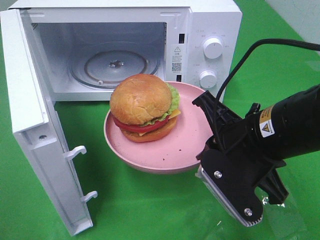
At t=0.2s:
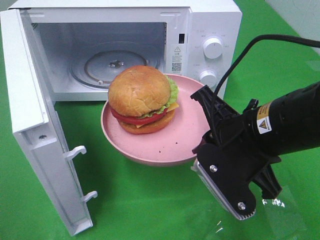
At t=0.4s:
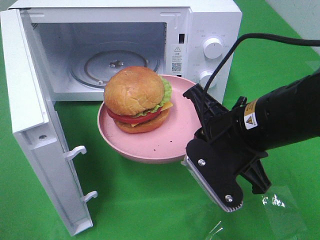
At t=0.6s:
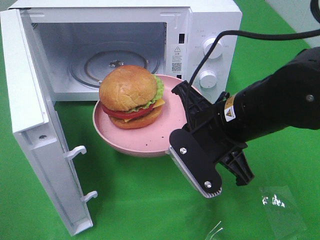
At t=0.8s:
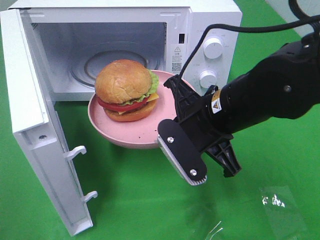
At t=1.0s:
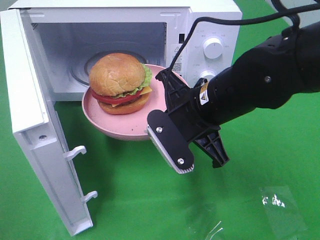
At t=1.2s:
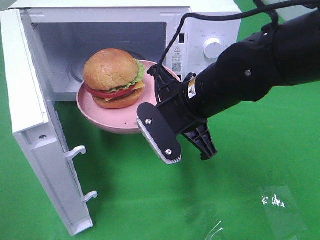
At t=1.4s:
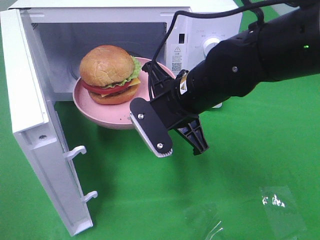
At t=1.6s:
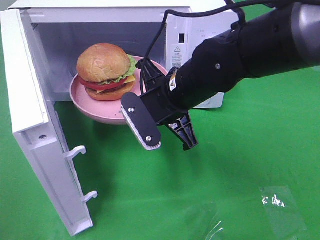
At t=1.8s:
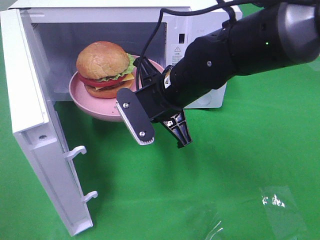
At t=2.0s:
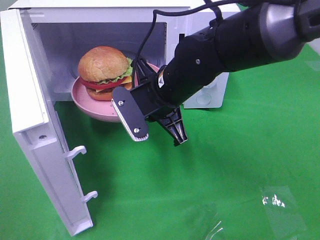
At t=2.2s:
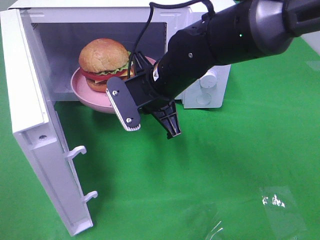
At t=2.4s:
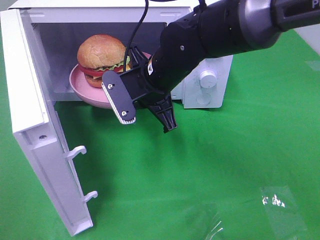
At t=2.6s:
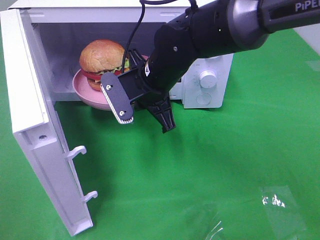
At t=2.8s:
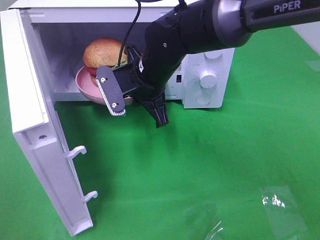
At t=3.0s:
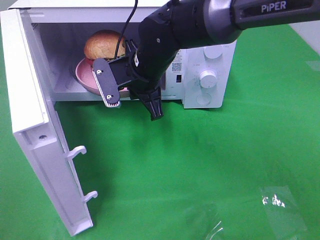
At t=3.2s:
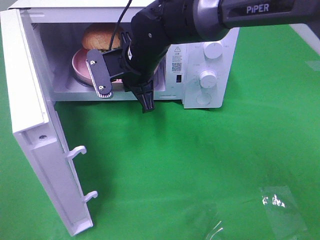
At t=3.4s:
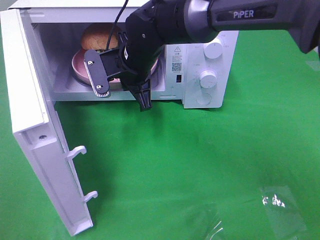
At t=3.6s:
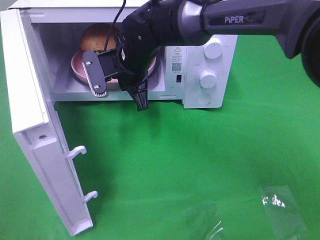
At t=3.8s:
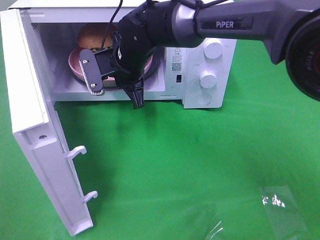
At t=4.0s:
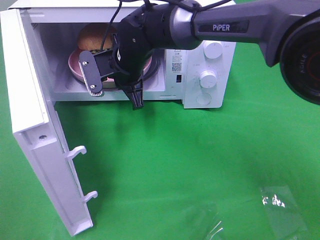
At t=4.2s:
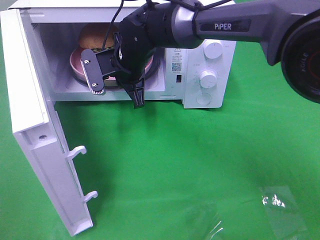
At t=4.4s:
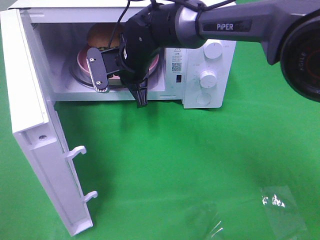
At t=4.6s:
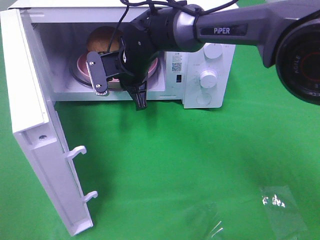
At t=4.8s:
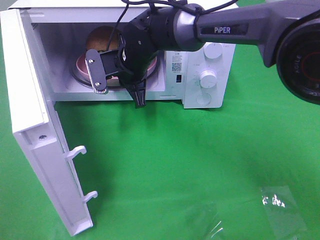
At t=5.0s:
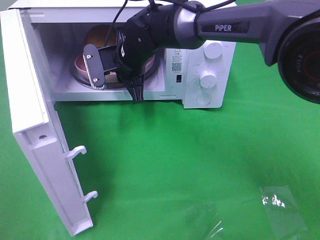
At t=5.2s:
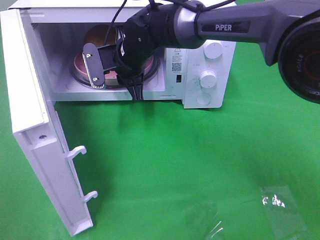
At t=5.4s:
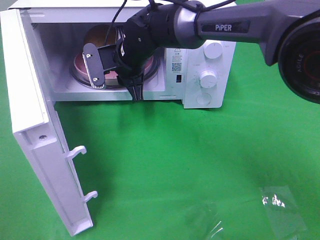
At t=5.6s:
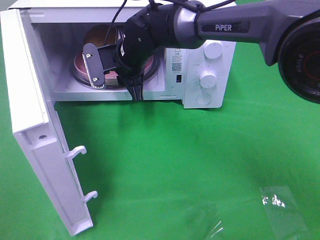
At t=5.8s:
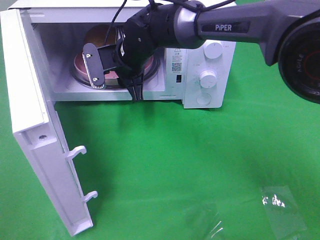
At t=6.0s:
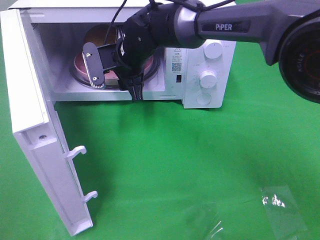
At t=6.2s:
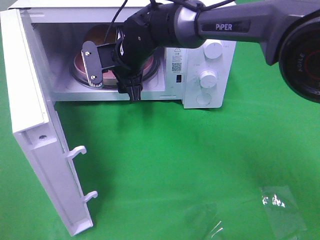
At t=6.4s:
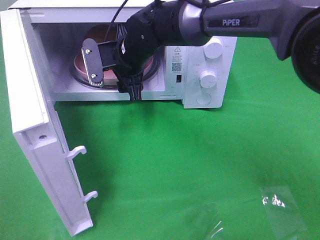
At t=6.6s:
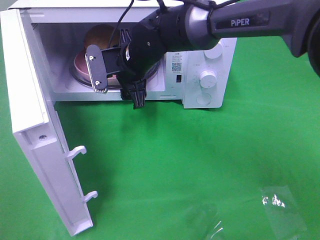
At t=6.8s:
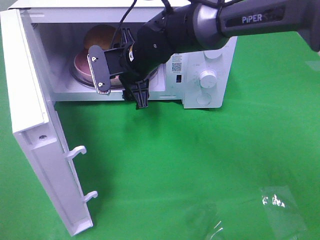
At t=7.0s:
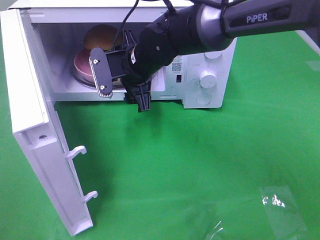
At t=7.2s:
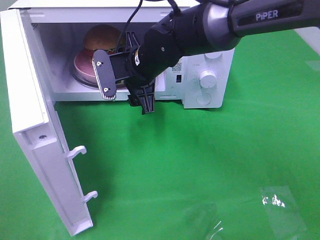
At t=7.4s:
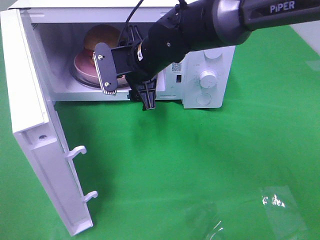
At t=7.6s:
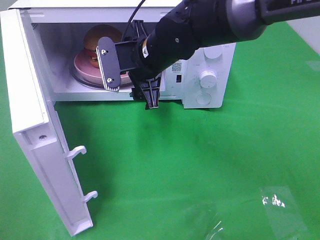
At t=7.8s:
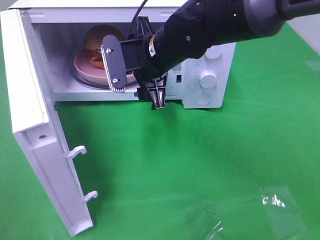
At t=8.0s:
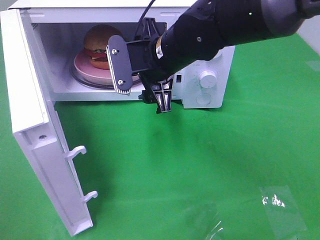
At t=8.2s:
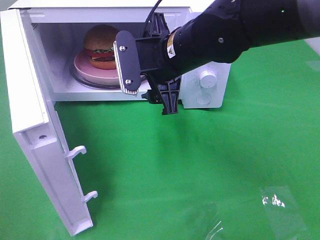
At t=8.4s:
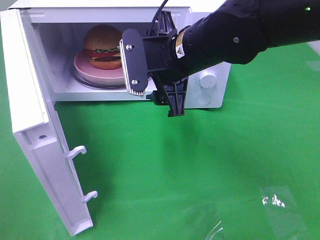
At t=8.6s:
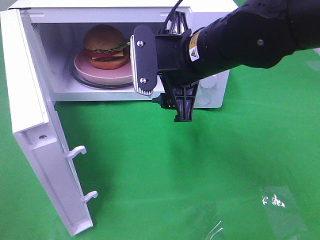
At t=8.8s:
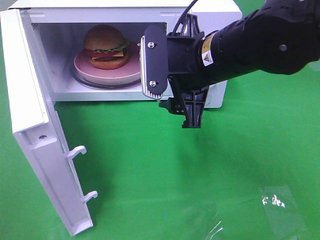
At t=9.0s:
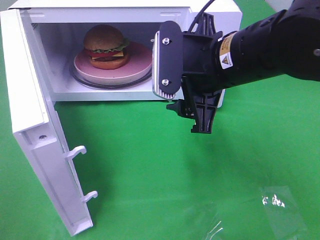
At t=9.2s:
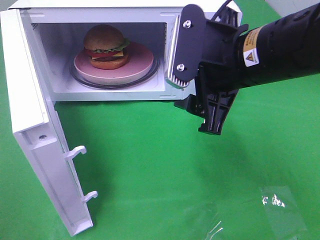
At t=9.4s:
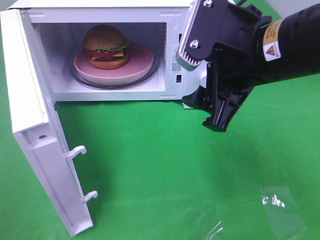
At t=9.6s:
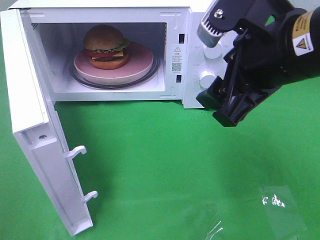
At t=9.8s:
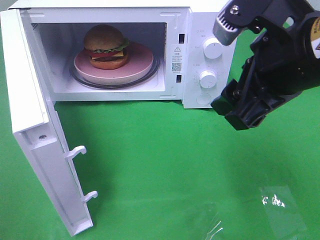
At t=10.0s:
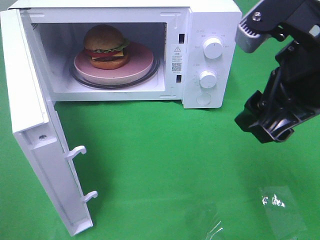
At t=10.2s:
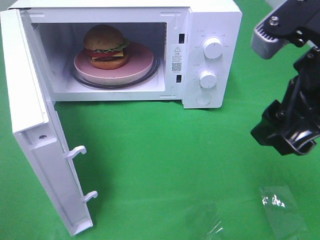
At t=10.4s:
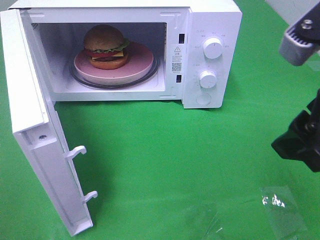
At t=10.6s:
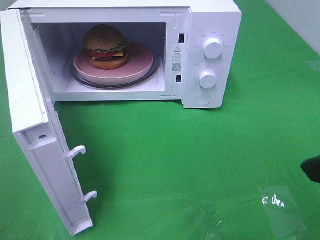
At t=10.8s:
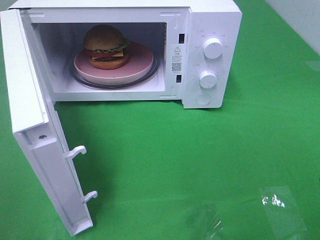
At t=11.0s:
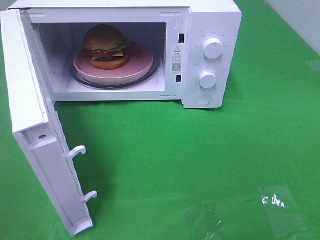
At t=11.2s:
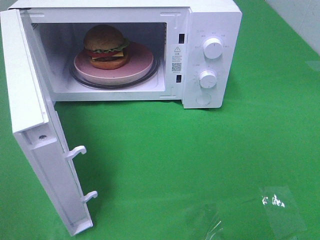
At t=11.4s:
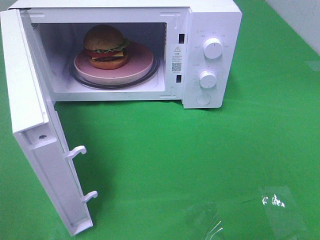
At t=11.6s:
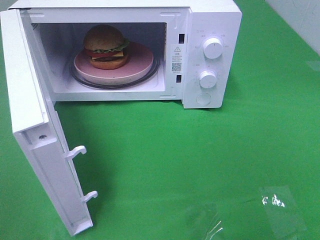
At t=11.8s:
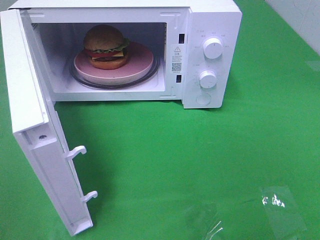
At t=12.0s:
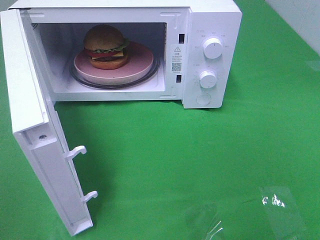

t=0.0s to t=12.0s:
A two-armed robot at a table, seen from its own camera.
Task of the whole recording: Heat the burger.
Step, t=0.0s to t=6.4s: Right hand: place the plate in the microwave.
t=0.0s to t=1.6s: The right gripper travels forward and to the left by approximately 15 cm.
t=1.6s to t=3.0s: The right gripper is displaced forward and to the left by about 10 cm.
t=3.0s to t=4.4s: The right gripper travels forward by some 5 cm.
t=4.4s to t=6.0s: The right gripper opens its fingers.
t=6.0s to t=7.6s: The right gripper shifts some 5 cm backward.
t=7.6s to t=9.0s: The right gripper travels backward and to the right by roughly 15 cm.
t=9.0s to t=10.4s: The right gripper is displaced backward, to the right and upward by some 15 cm.
t=10.4s to t=12.0s: The right gripper shifts about 20 cm backward and to the right.

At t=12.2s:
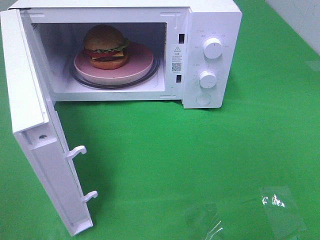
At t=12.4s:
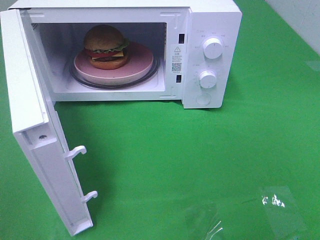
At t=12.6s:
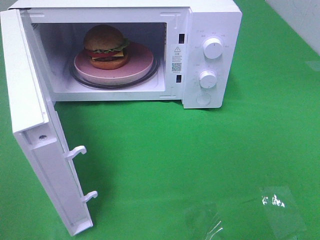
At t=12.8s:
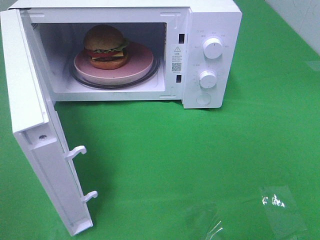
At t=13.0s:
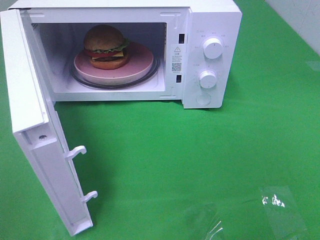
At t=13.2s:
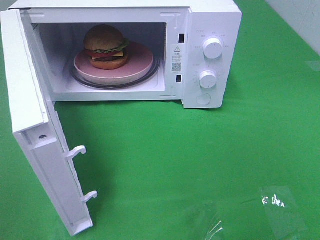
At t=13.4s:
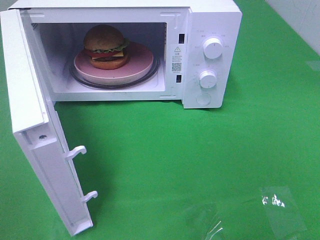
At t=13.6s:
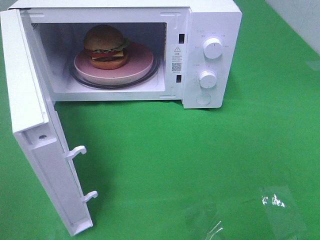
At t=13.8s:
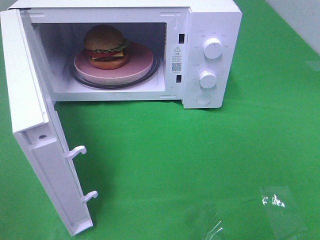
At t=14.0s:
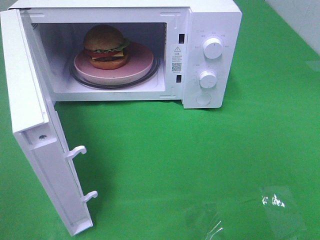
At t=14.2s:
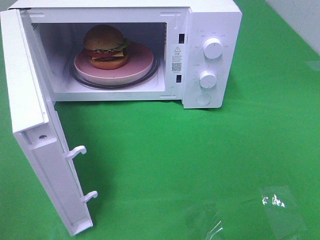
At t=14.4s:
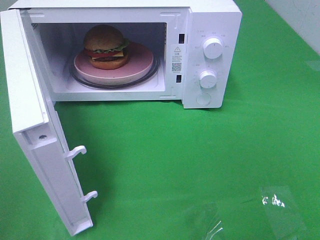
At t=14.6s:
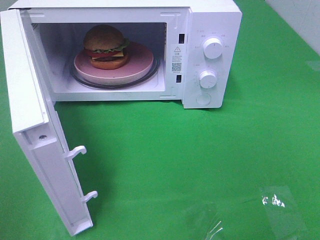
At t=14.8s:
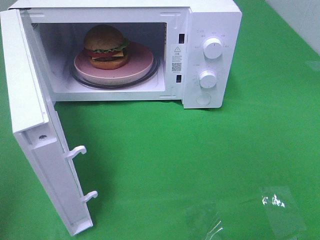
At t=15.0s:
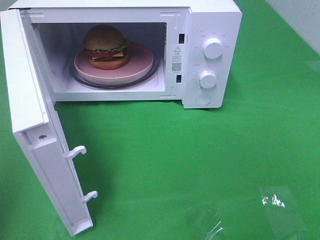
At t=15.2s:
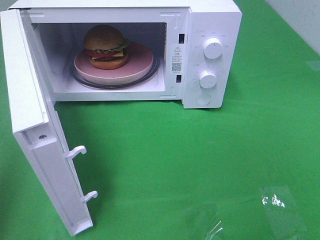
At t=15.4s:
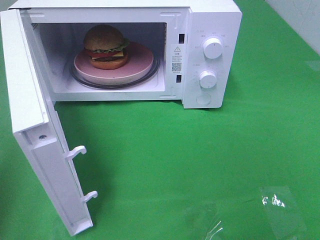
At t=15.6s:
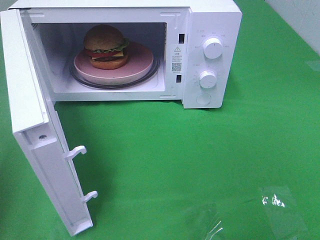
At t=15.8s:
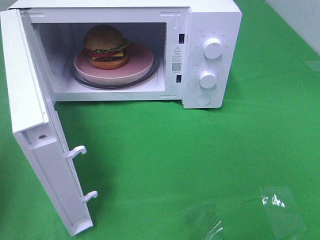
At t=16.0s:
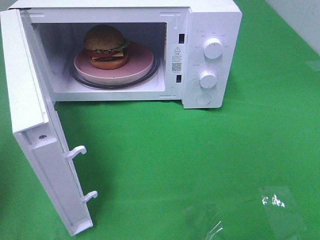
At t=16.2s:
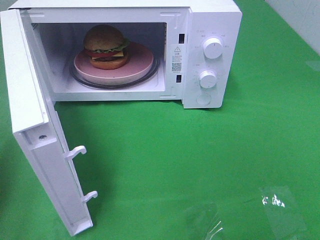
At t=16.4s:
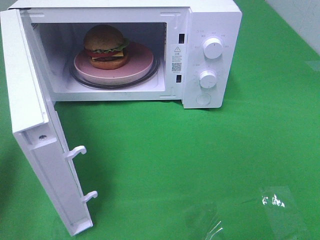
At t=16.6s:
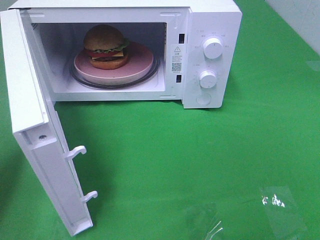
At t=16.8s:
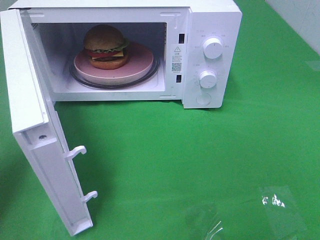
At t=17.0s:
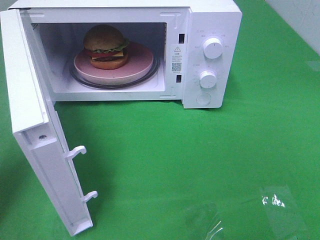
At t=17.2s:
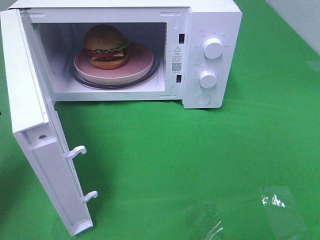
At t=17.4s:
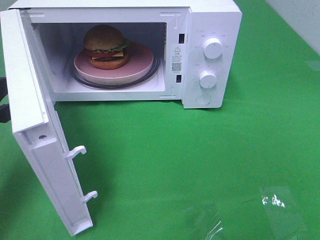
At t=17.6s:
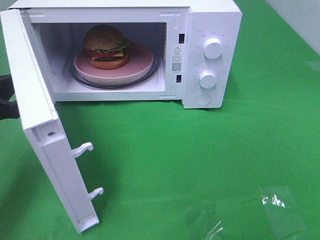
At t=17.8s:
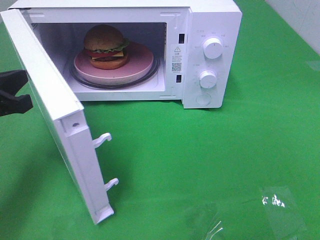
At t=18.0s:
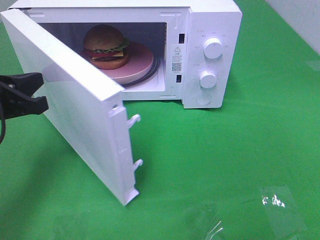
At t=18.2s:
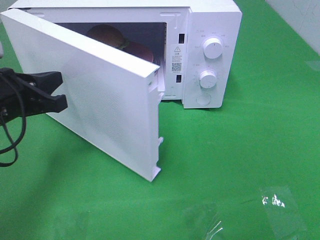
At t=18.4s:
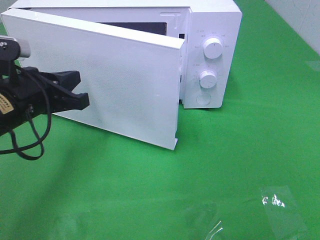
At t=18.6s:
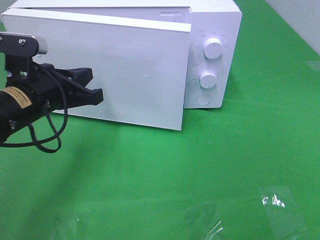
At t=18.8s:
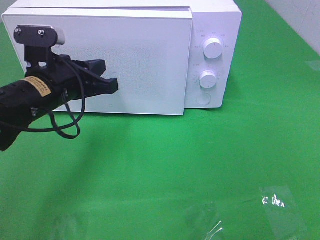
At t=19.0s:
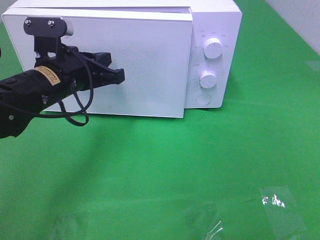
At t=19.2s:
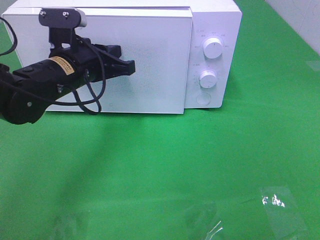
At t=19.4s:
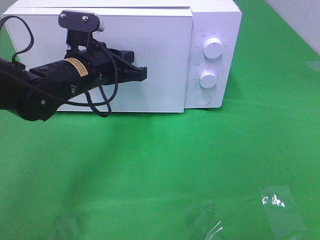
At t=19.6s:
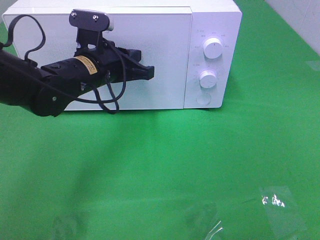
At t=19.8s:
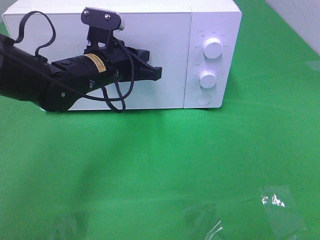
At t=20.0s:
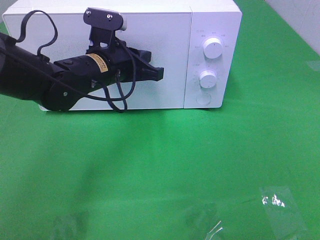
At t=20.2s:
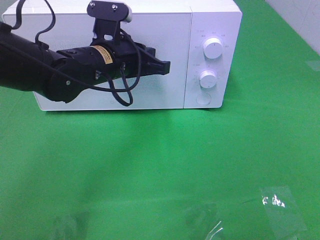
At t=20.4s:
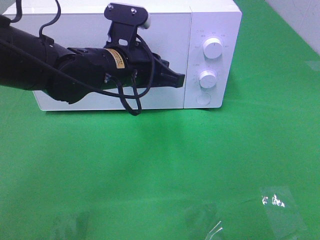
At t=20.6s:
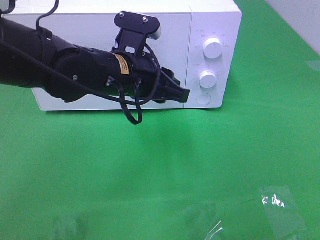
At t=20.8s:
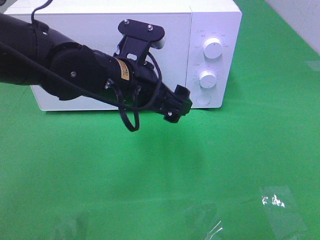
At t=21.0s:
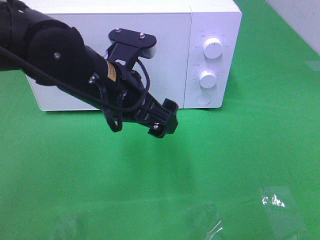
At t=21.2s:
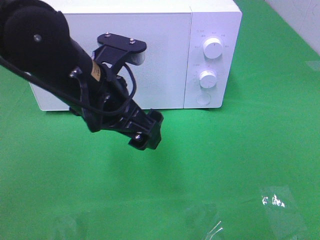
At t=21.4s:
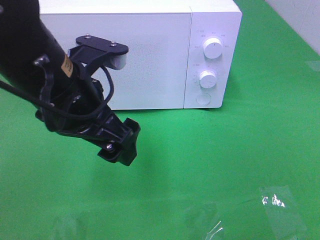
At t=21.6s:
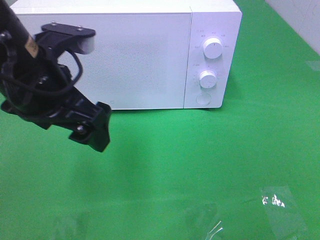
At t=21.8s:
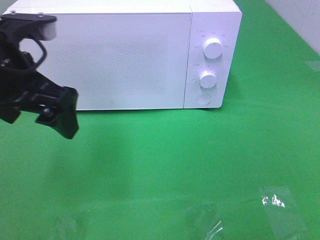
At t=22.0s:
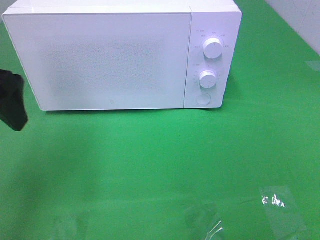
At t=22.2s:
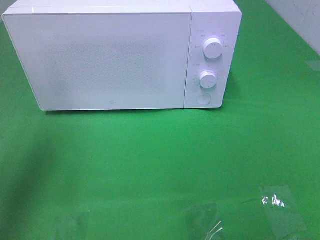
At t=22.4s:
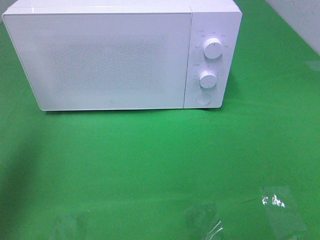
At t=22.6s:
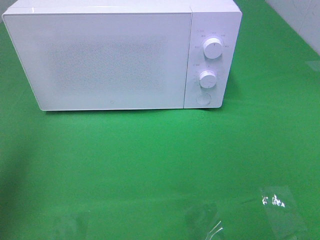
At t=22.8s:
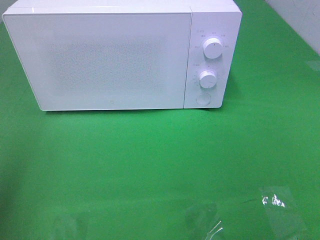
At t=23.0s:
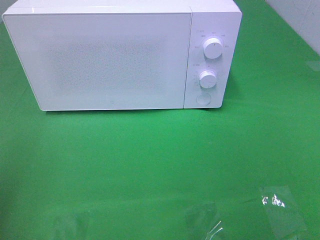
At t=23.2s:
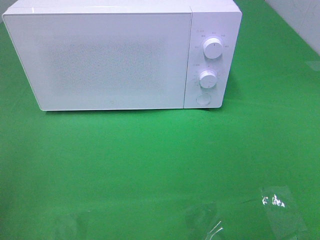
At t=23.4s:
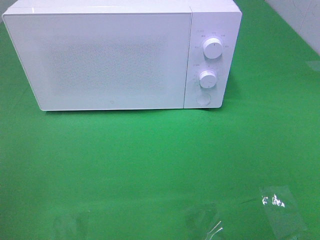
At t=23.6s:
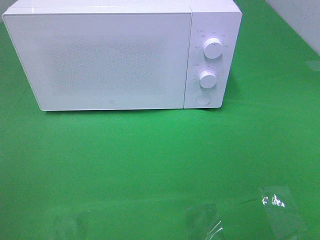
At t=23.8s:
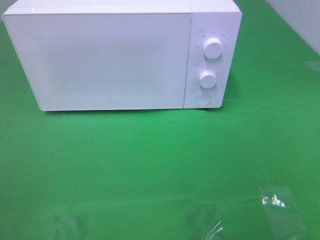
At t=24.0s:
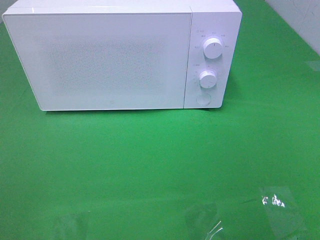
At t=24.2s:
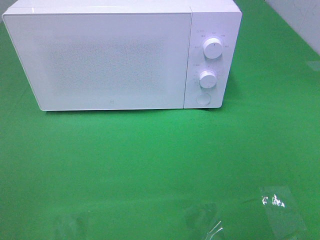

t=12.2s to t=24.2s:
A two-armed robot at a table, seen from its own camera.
Task of the whole recording: Heat the burger.
Step, t=12.2s to t=20.2s: Left hand: close the microwave door.
t=12.2s to t=13.8s: Both grippers stay about where they are.
t=16.6s to t=18.2s: The left gripper is displaced to the right by some 10 cm.
t=18.2s to t=19.8s: The left gripper moves to the right and forward, approximately 15 cm.
t=19.8s to t=21.2s: The left gripper is displaced backward and upward by roughly 15 cm, and opens its fingers.
t=21.2s to t=22.6s: The left gripper shifts about 25 cm to the left.
t=22.6s to t=24.2s: The left gripper goes about 20 cm backward.
